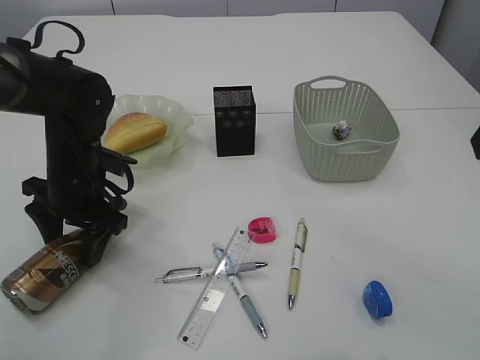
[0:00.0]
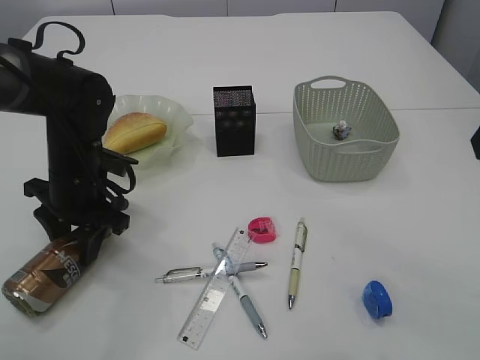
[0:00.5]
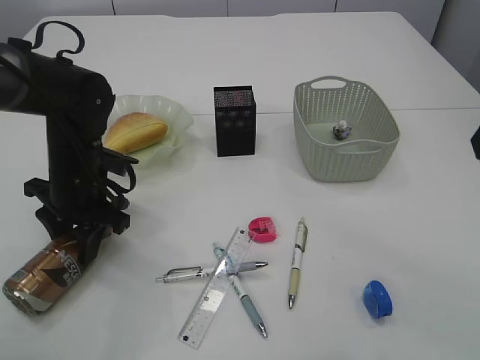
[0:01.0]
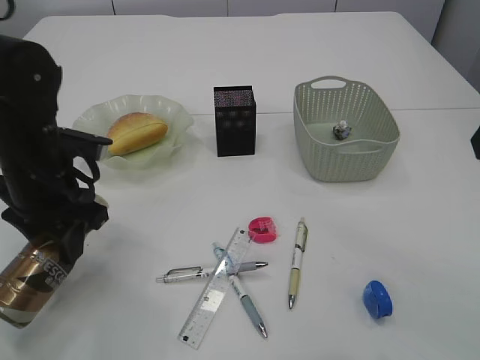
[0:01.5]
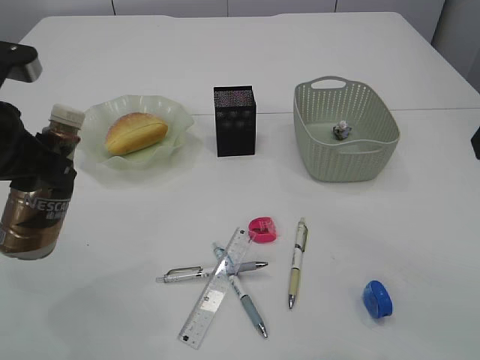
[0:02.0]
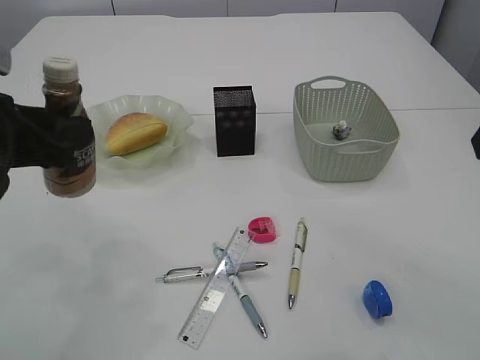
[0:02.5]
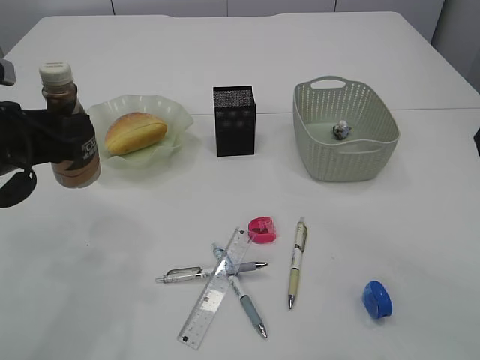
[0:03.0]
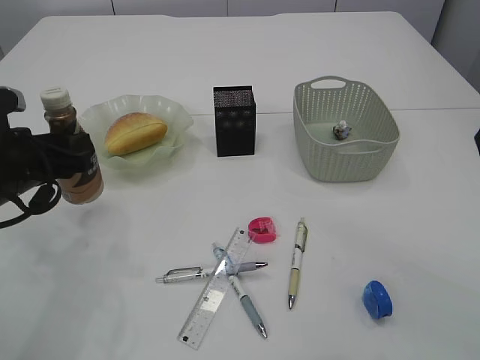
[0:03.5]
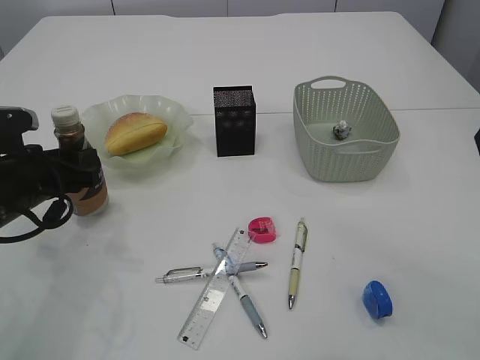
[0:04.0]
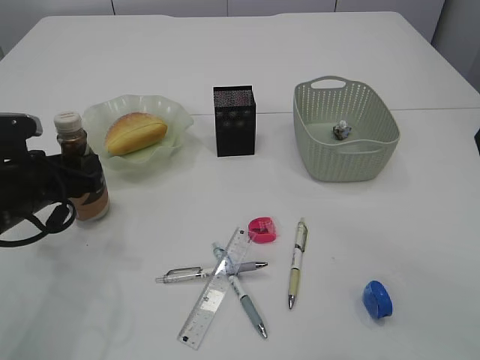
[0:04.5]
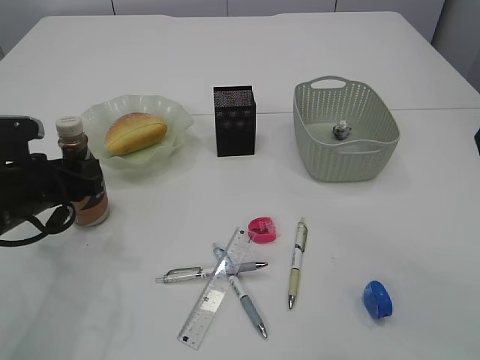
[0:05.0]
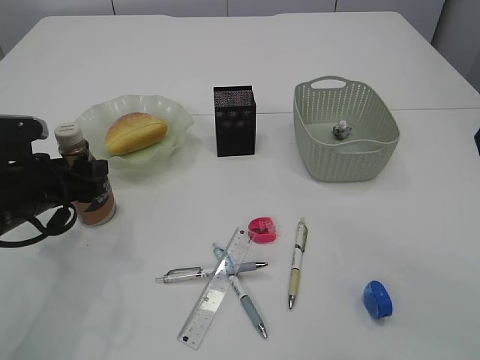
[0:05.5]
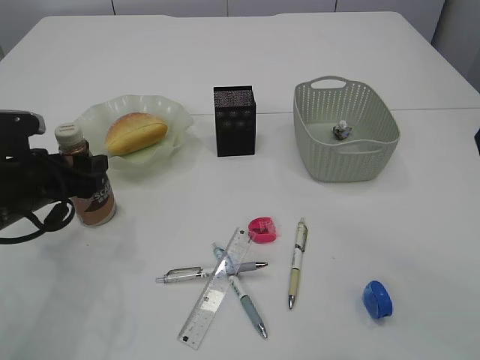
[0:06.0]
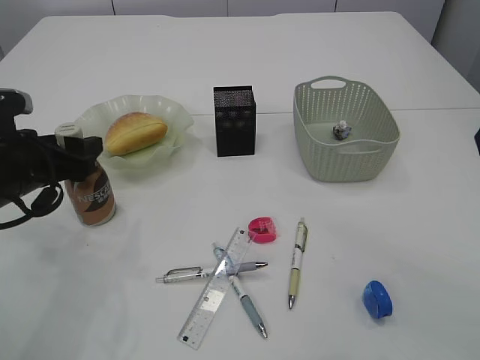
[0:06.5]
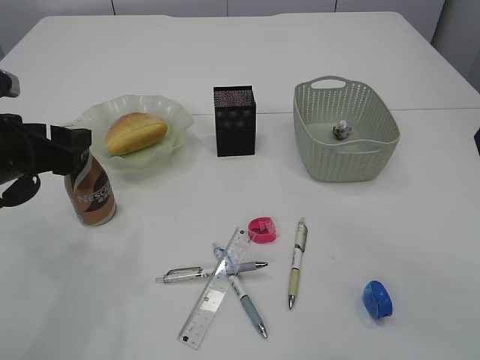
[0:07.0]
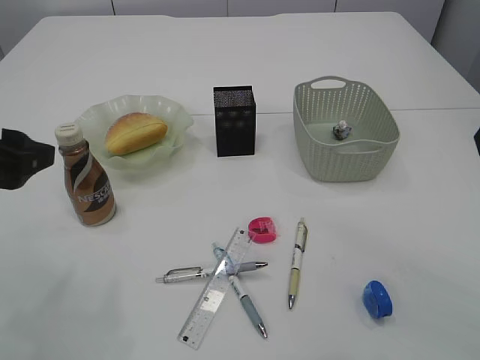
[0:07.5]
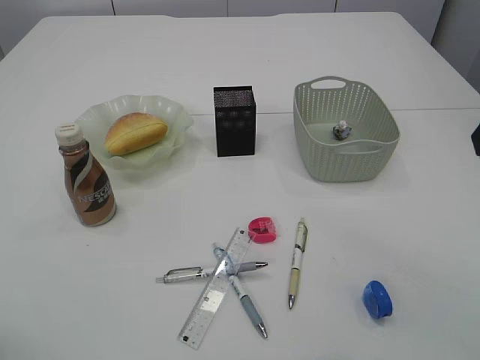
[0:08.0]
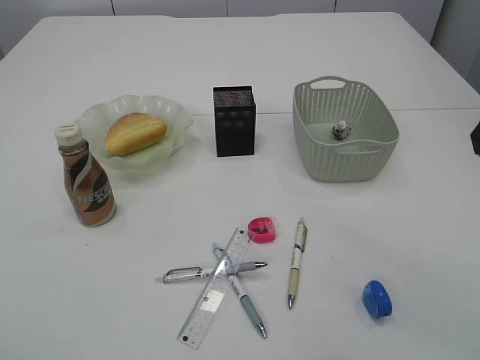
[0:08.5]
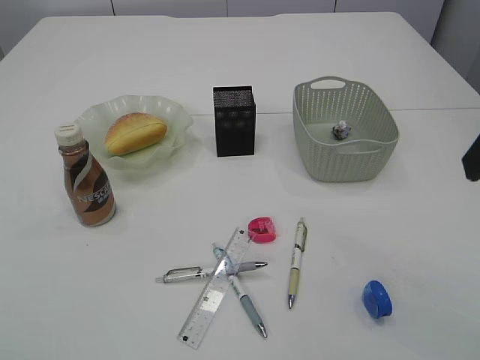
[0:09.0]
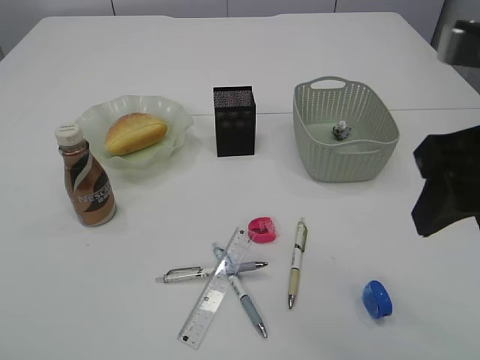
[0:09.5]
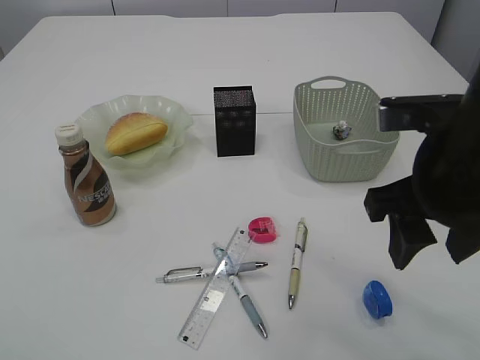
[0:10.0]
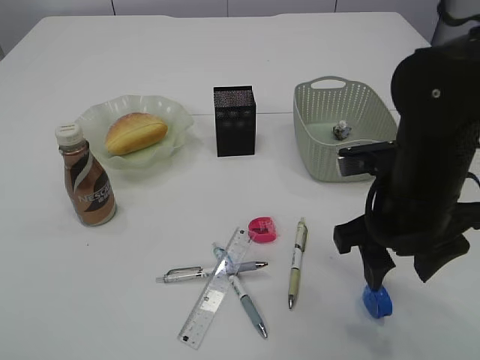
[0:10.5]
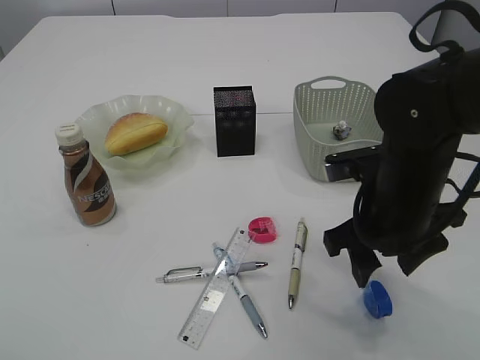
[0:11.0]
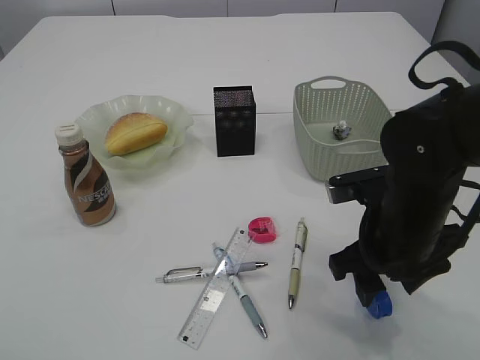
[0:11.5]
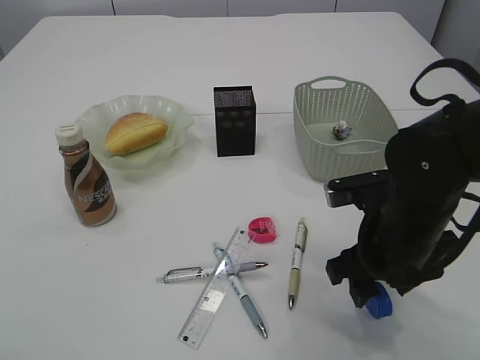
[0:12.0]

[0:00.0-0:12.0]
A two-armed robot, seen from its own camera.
Step, 0:02.0 to 0:07.5: Place the bottle.
0:00.0 to 0:02.0: The left gripper shifts some 15 cm upward and backward, and closes up.
0:02.0 to 0:04.0: The left gripper moves downward and forward, approximately 15 cm.
0:04.0 to 0:06.0: The left gripper opens up.
0:06.0 to 0:08.0: The left gripper moves upward and backward, roughly 20 cm.
0:08.0 to 0:10.0: The right gripper shifts about 10 cm downward and to the left.
0:10.0 to 0:12.0: The right gripper heads downward, covering approximately 10 cm.

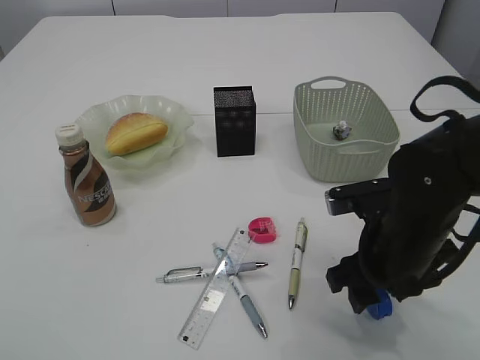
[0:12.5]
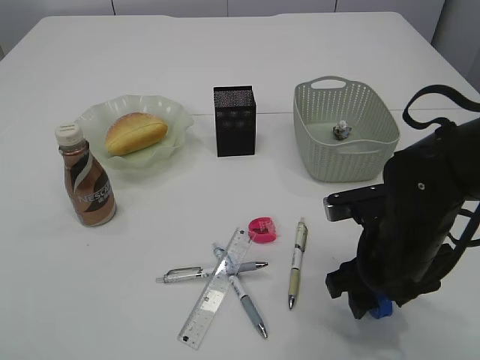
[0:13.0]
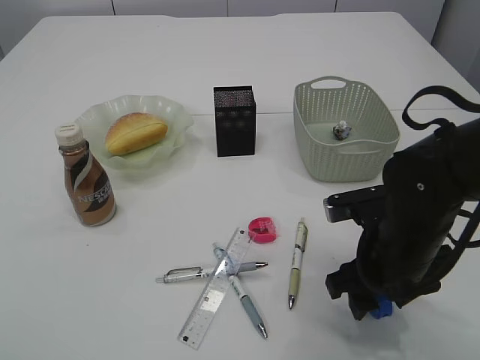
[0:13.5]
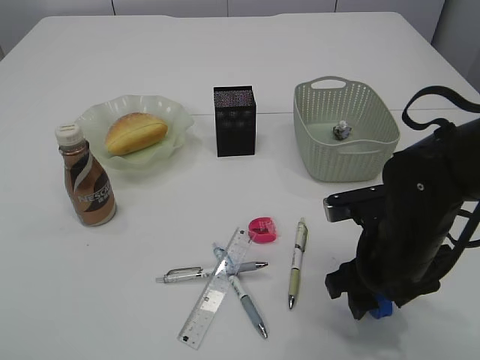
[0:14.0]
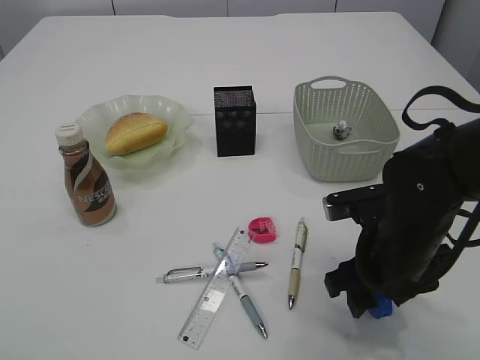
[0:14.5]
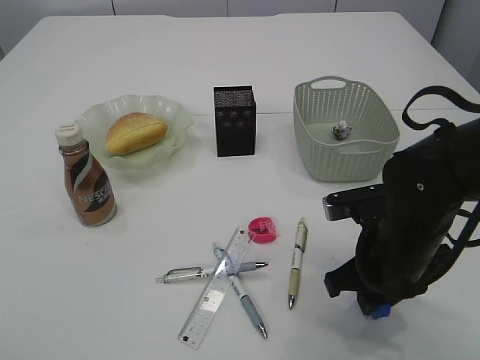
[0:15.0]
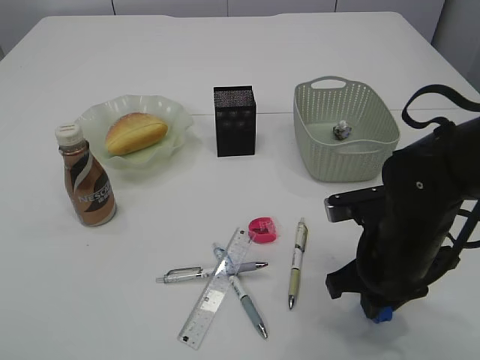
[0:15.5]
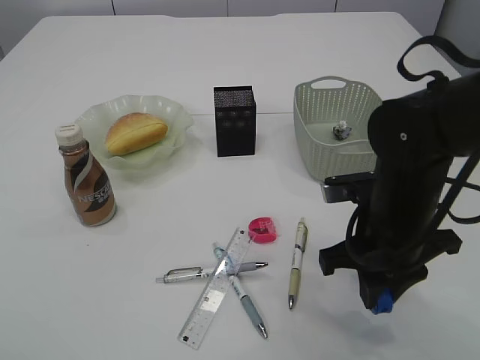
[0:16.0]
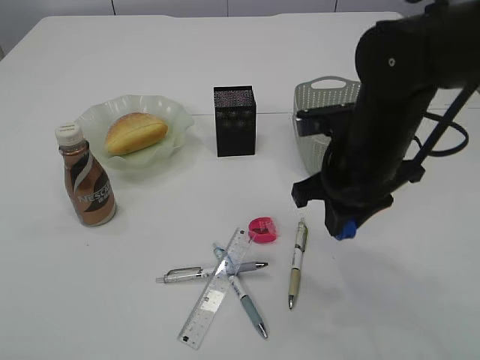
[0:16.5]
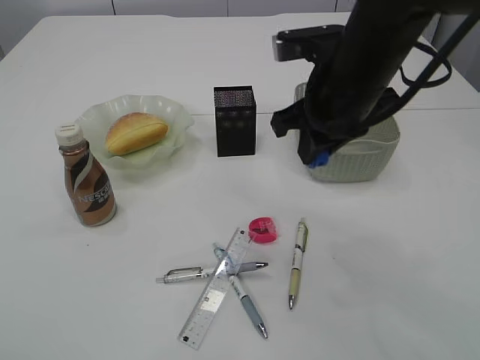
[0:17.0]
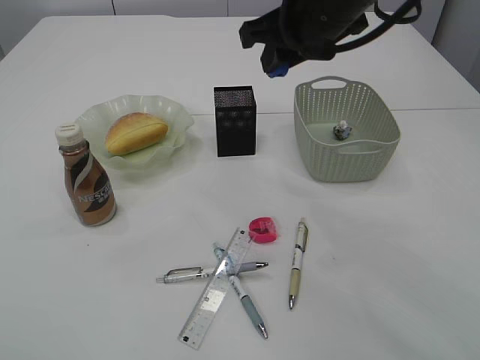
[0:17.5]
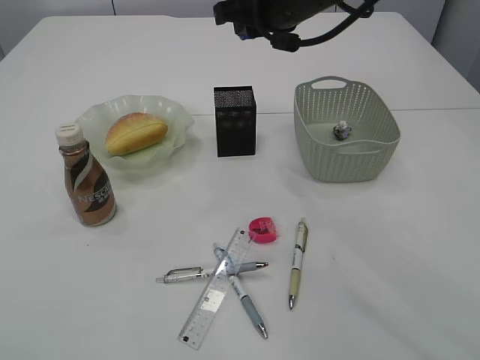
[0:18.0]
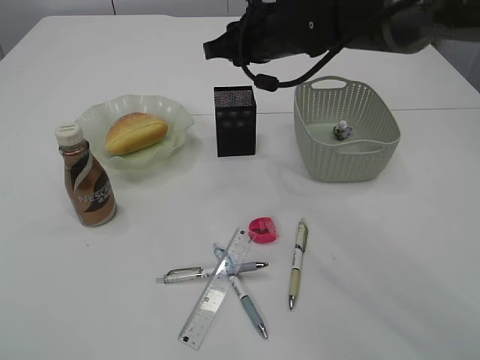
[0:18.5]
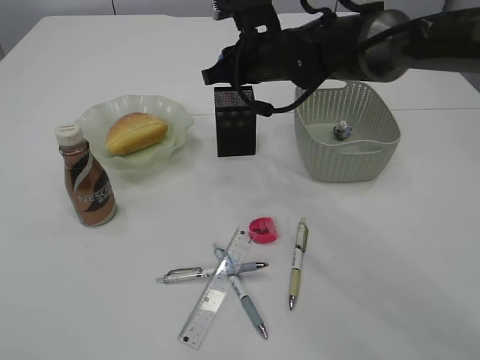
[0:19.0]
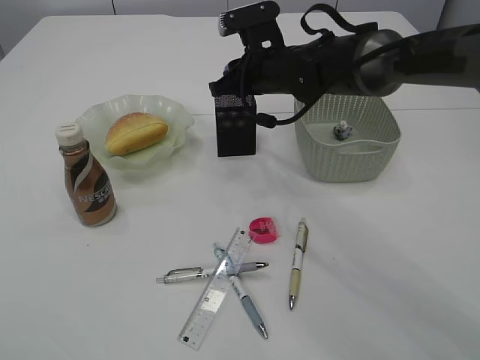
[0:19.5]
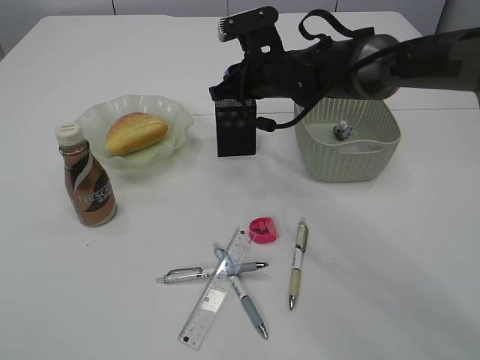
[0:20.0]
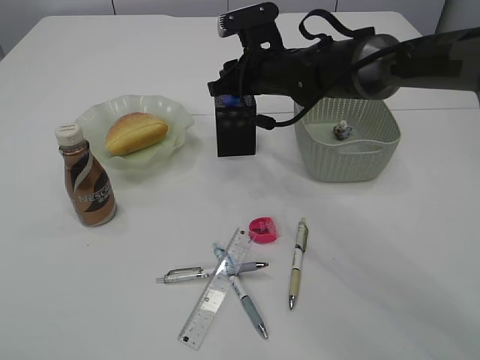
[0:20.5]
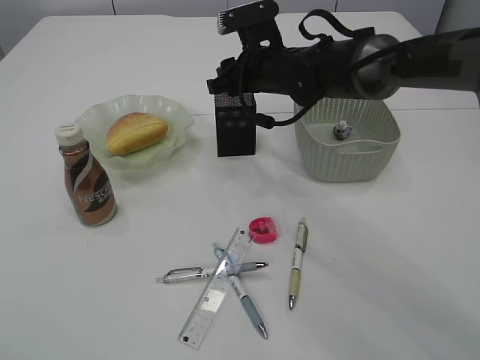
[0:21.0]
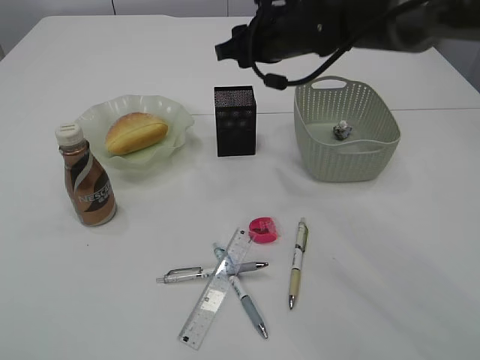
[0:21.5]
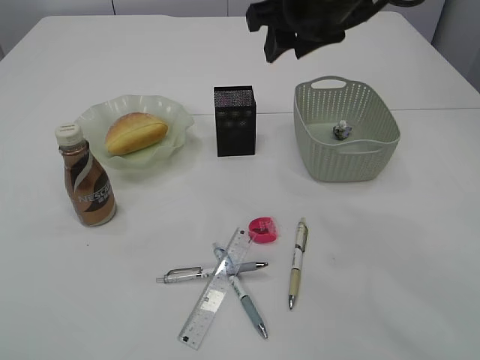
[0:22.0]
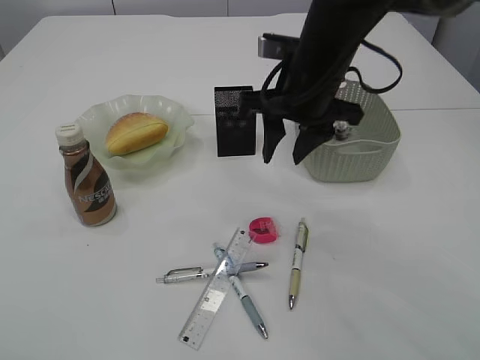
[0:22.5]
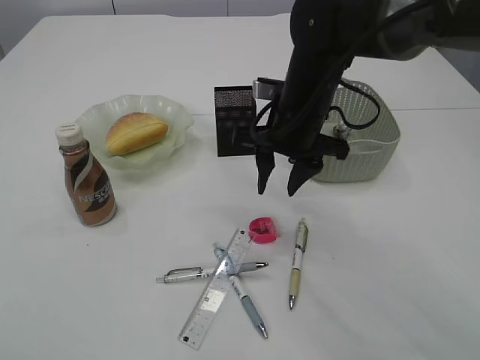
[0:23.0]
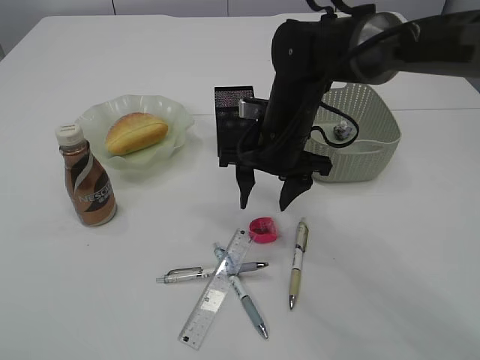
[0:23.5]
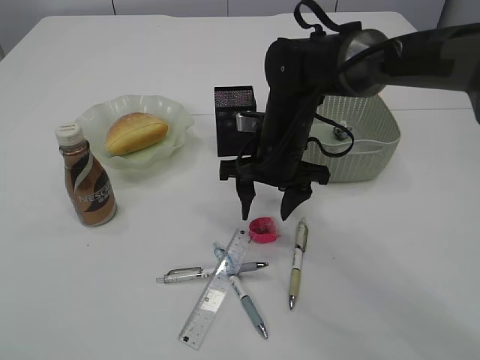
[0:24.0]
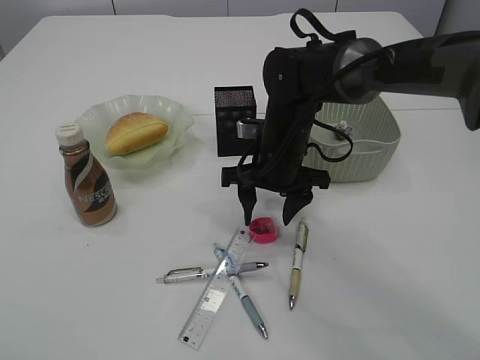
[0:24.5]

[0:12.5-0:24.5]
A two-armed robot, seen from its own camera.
Step, 0:12.5 to 0:16.0: Pick up the blue pencil sharpener.
Step, 0:16.5 to 0:21.0: Place the blue pencil sharpener into the pen holder.
0:12.5 to 0:14.5: The two grippers keep their place.
0:14.5 to 0:16.5: The right gripper shifts approximately 10 cm upward, and closes.
0:16.5 to 0:18.5: The right gripper moves forward and to the left, approximately 15 cm.
0:18.5 to 0:20.5: The right gripper heads downward, covering some 5 cm.
0:20.5 to 0:22.5: The right gripper heads backward and upward, covering about 10 cm.
0:22.5 to 0:24.5: The right gripper shifts roughly 10 cm downward.

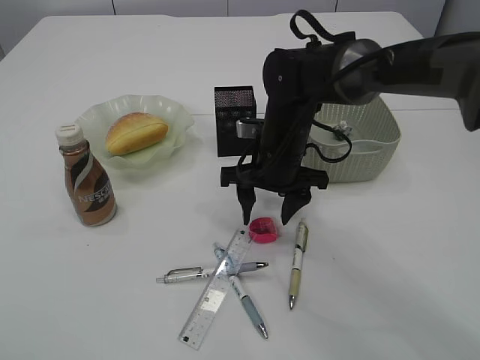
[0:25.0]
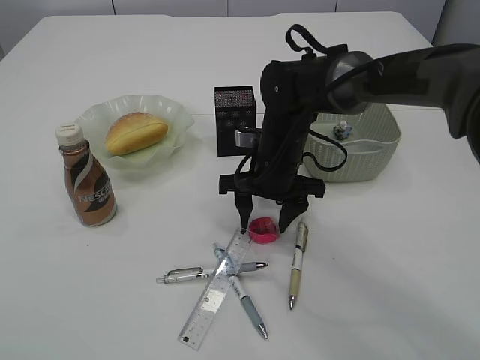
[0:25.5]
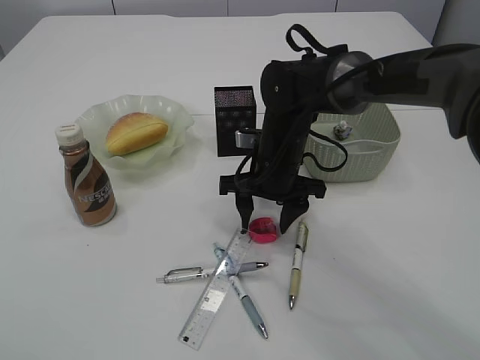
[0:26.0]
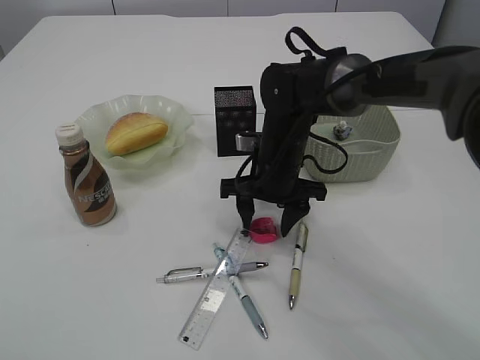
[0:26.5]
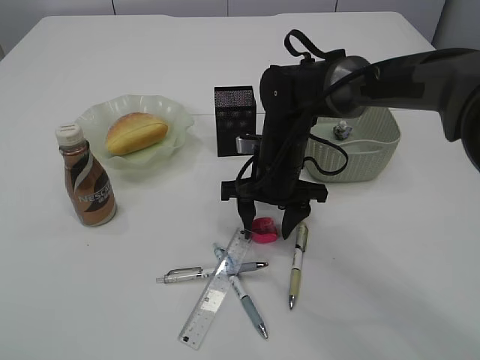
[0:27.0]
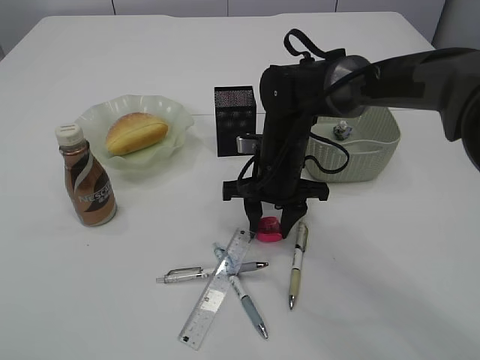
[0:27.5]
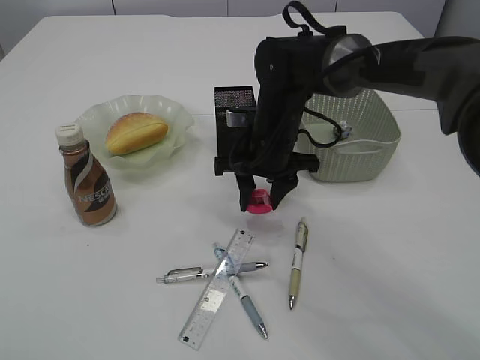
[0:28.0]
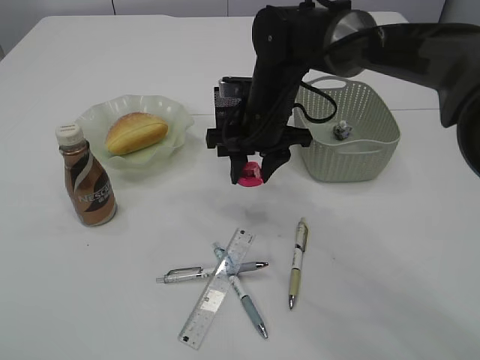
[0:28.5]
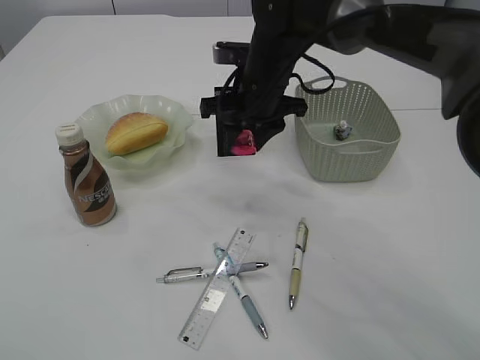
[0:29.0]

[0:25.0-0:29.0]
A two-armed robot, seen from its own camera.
Step, 0:25.0 to 0:28.0: Pick up the red pencil sharpener.
0:25.0 to 0:27.0: The grippers move only a little.
0:27.0 to 0:29.0: The right gripper shifts about 10 cm upward.
